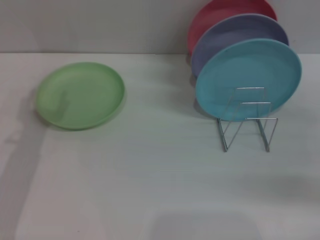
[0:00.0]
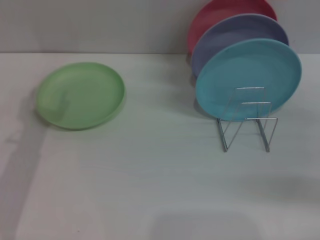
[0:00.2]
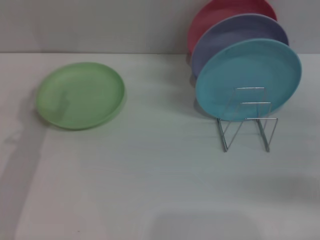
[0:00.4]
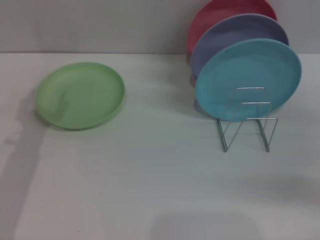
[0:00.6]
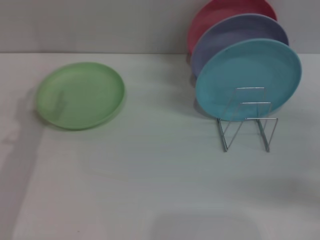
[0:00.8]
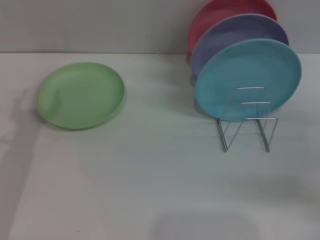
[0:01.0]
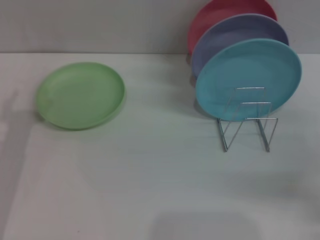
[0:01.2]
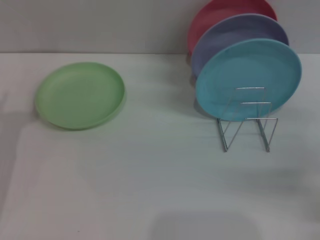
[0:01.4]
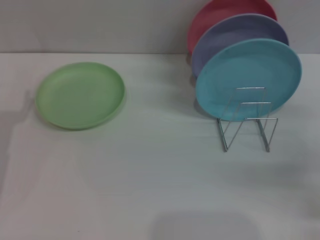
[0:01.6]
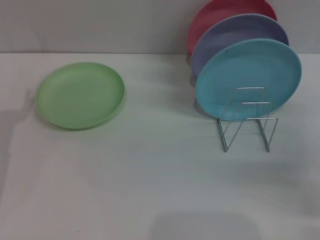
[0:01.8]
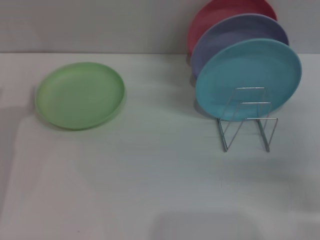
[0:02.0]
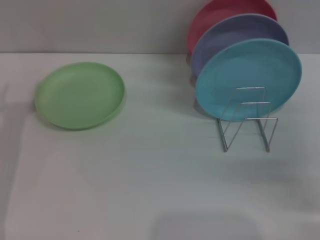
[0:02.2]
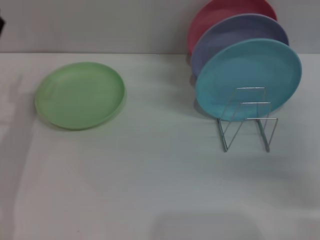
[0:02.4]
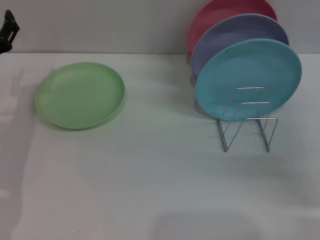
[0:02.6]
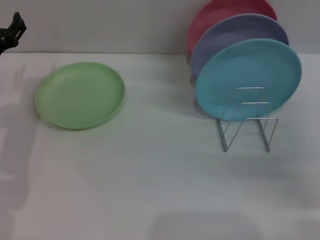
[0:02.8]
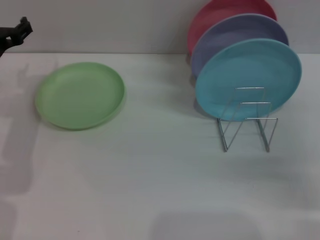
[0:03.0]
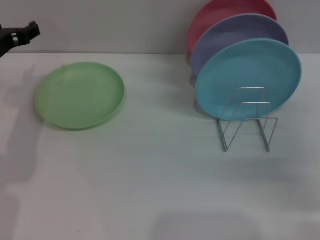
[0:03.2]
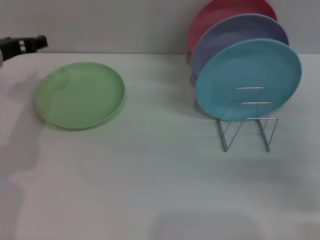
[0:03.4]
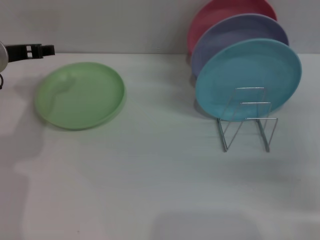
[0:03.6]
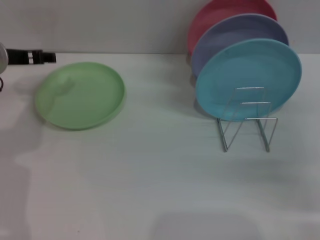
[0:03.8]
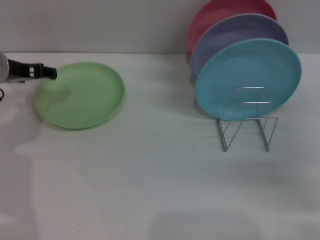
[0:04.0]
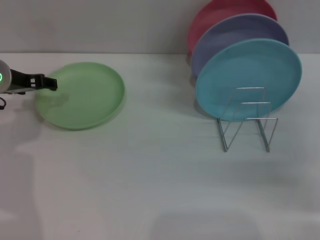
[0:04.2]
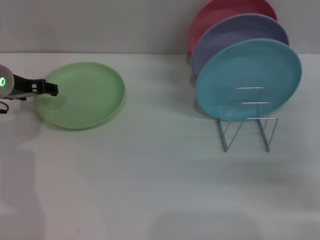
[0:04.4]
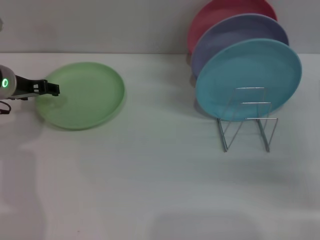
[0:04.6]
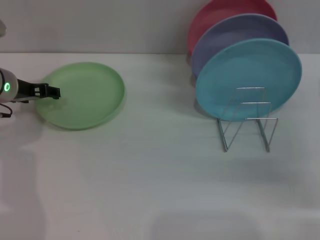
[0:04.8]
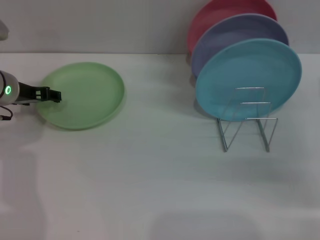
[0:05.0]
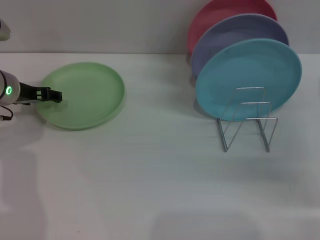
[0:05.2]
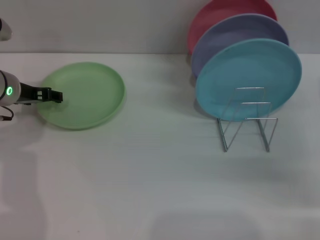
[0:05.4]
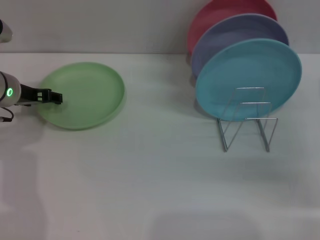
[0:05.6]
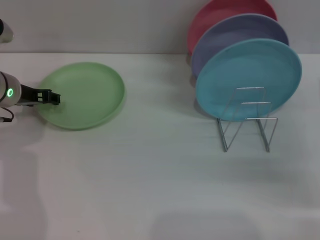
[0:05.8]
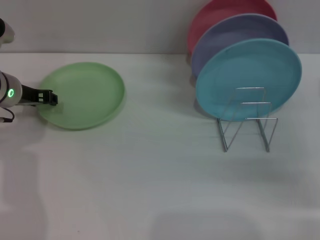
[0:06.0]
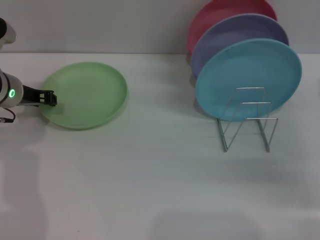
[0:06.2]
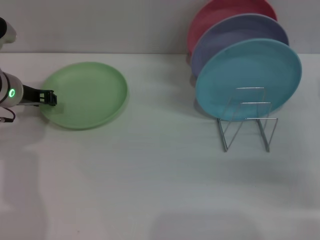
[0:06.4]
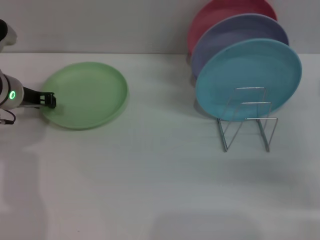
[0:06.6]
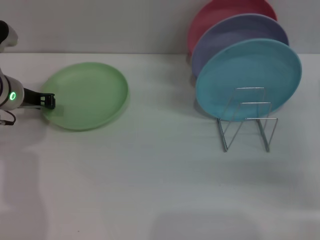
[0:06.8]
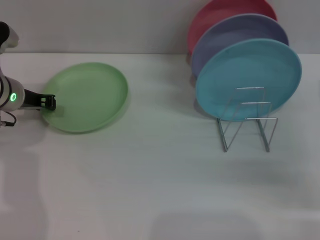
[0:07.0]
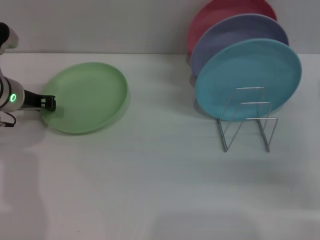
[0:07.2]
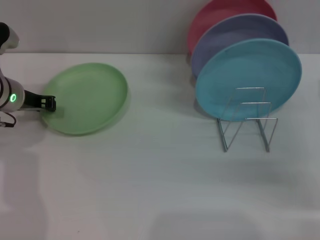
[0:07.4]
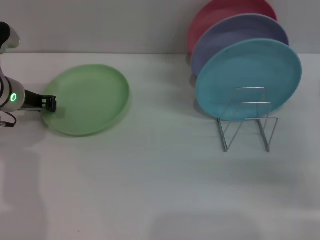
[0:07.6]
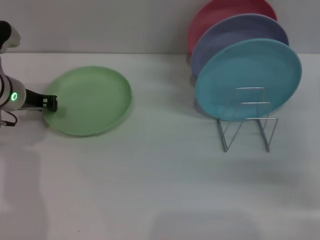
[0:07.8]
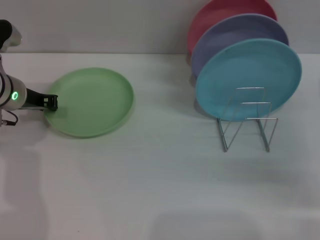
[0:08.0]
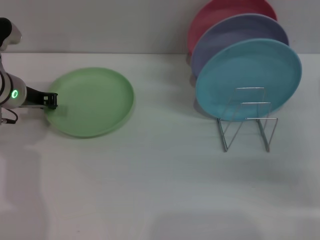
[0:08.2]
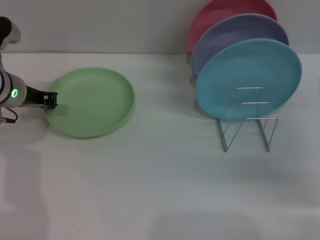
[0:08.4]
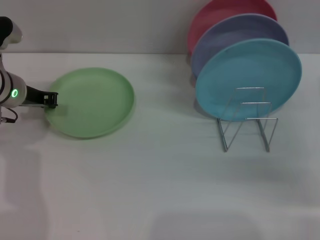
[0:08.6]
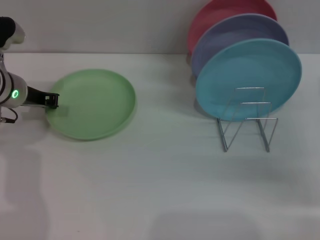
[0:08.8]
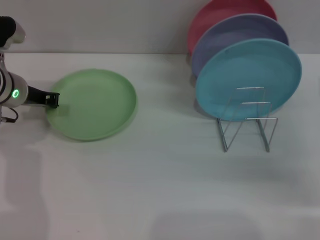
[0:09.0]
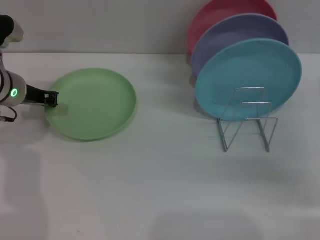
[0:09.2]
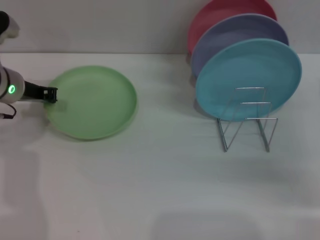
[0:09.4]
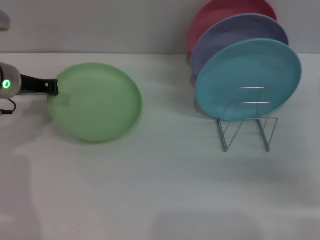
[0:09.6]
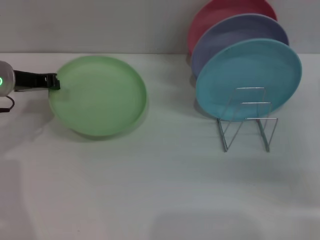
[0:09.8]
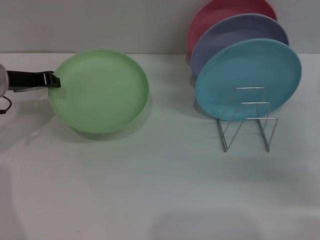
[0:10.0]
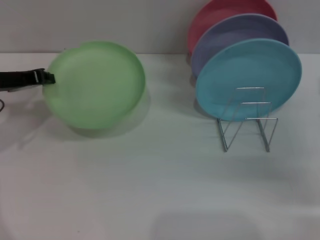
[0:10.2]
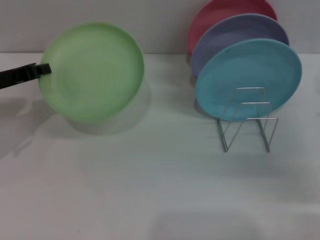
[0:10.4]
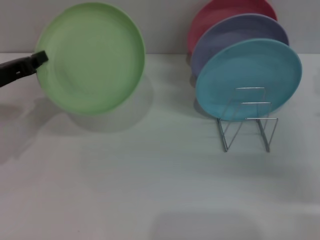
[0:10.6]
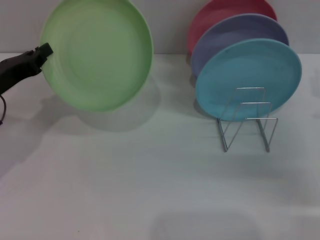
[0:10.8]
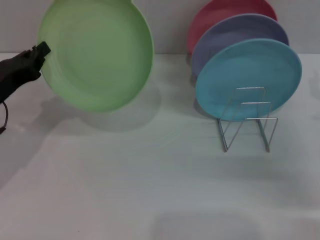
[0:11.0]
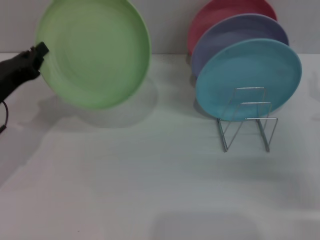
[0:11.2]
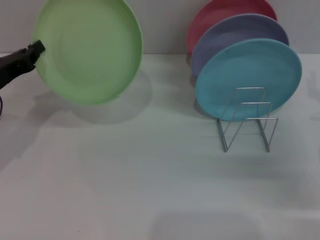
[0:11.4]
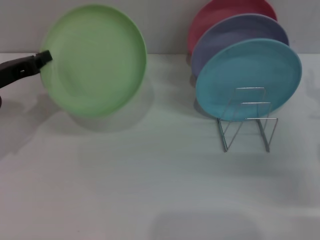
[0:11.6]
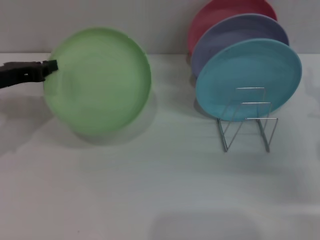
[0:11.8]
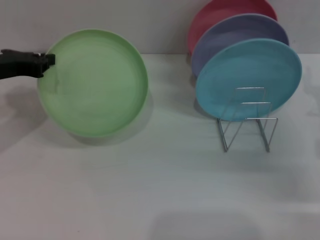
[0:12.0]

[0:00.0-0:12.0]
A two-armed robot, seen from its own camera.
Task of the whole recording: Grip the plate with one hand, pass it to the other, then set it on the shelf.
Step, 0:00.0 to 0:10.6: Pick up the plate with the left gripper.
0:01.6 to 0:03.0: The left gripper shifts about 10 cm forward.
0:04.4 to 0:06.0: The grippers move only a little.
0:06.0 to 0:07.6: The left gripper closes up.
0:07.6 to 0:09.0: The two grippers keep their place.
0:09.0 to 0:10.4: The left gripper travels backward and to the left by about 10 cm.

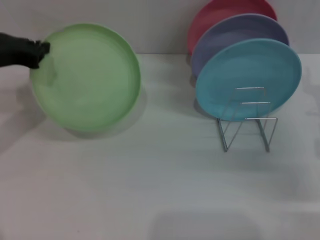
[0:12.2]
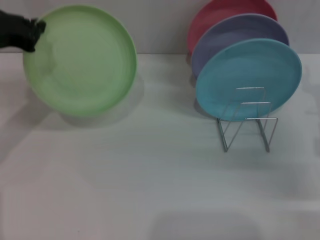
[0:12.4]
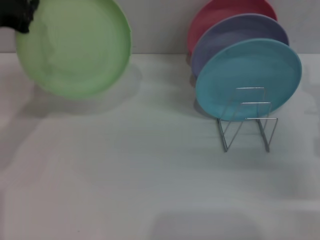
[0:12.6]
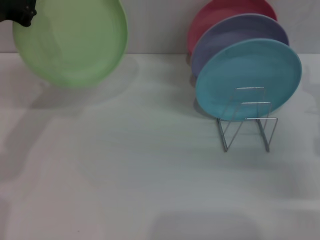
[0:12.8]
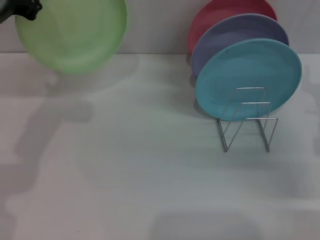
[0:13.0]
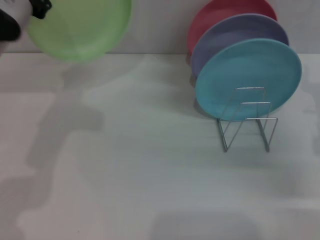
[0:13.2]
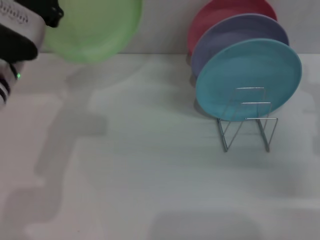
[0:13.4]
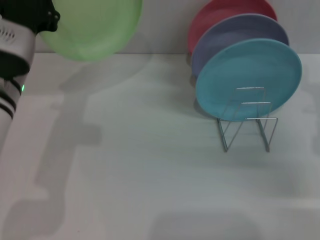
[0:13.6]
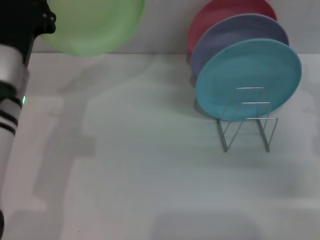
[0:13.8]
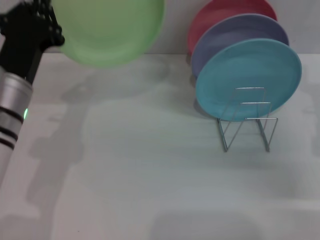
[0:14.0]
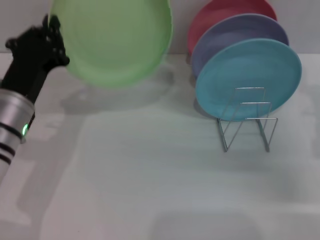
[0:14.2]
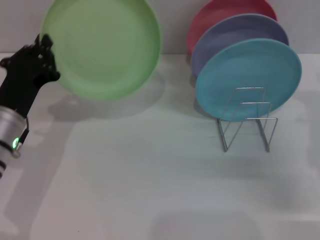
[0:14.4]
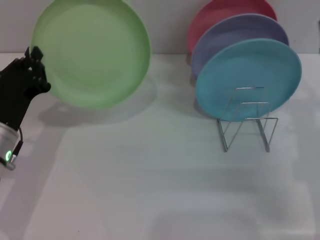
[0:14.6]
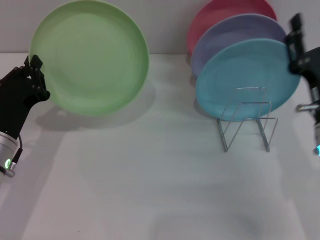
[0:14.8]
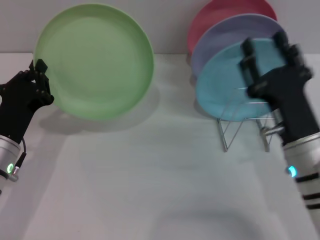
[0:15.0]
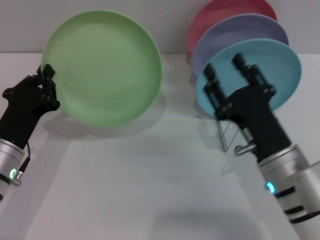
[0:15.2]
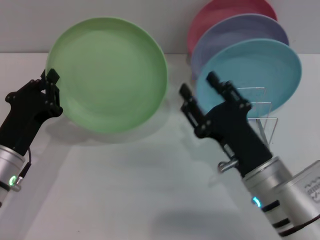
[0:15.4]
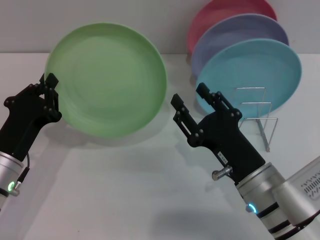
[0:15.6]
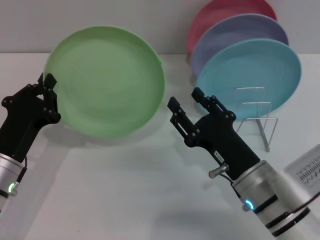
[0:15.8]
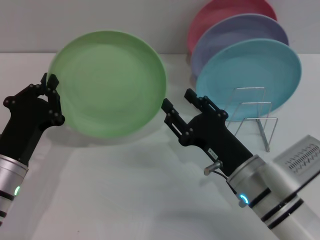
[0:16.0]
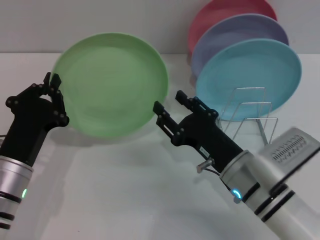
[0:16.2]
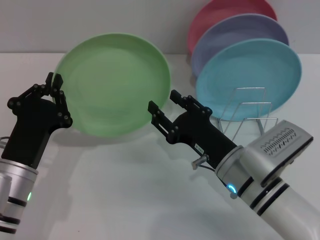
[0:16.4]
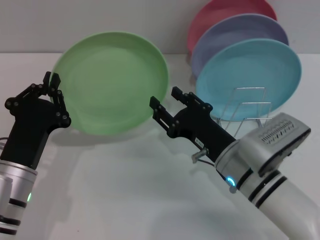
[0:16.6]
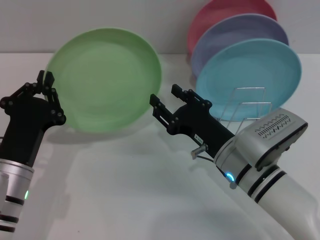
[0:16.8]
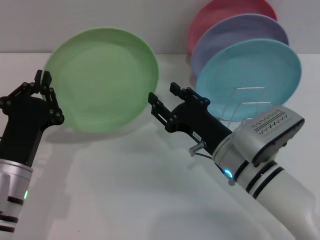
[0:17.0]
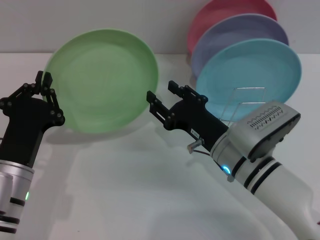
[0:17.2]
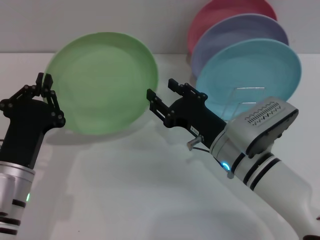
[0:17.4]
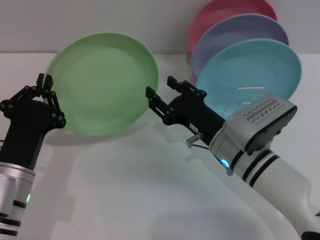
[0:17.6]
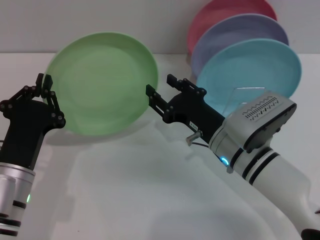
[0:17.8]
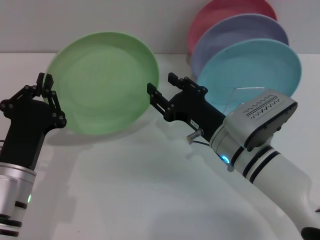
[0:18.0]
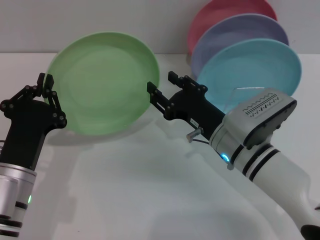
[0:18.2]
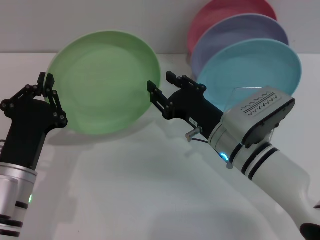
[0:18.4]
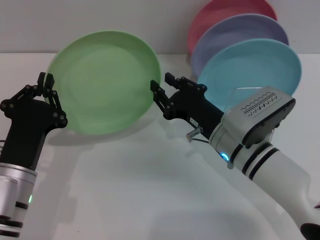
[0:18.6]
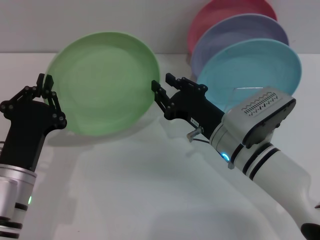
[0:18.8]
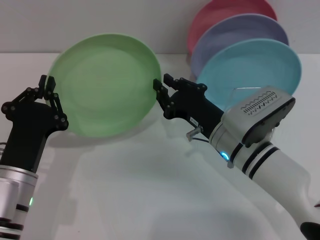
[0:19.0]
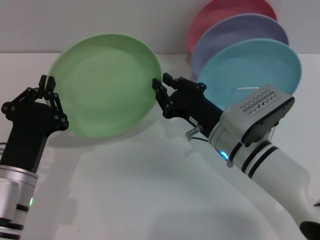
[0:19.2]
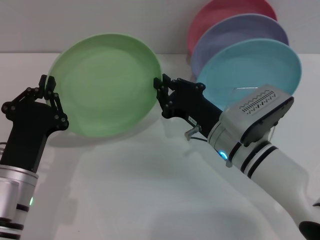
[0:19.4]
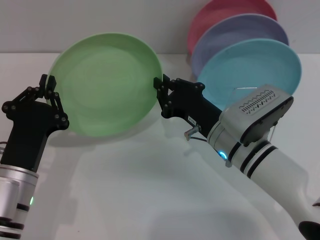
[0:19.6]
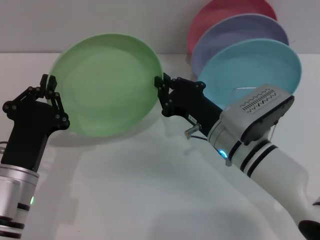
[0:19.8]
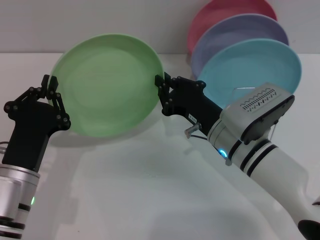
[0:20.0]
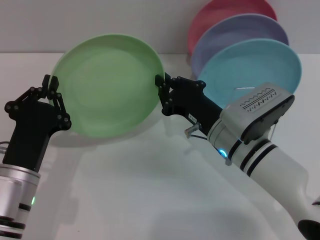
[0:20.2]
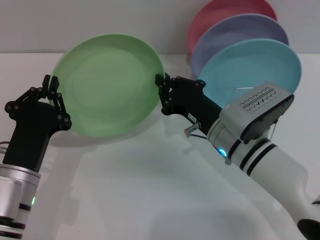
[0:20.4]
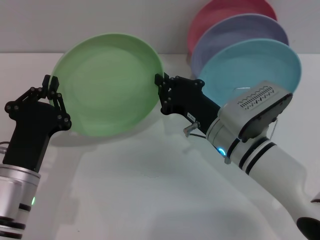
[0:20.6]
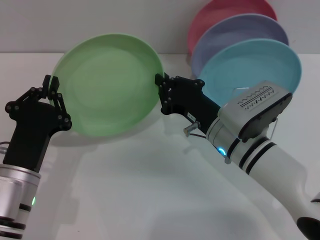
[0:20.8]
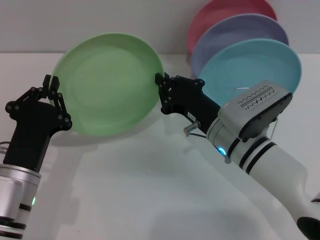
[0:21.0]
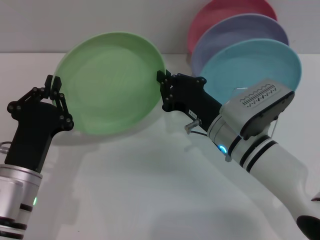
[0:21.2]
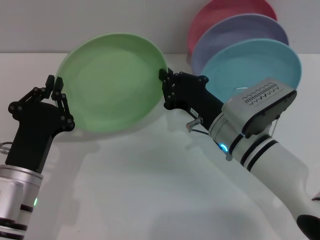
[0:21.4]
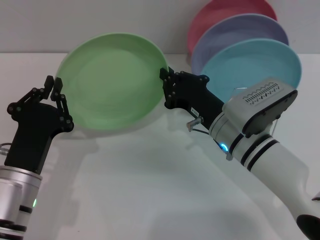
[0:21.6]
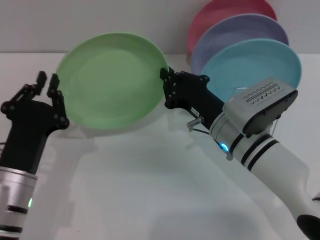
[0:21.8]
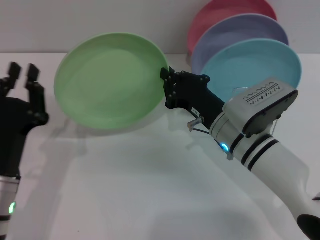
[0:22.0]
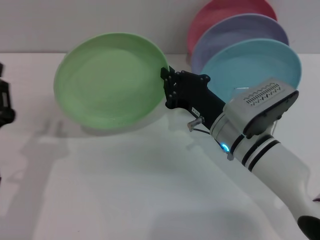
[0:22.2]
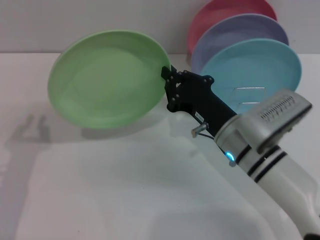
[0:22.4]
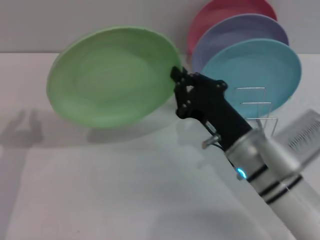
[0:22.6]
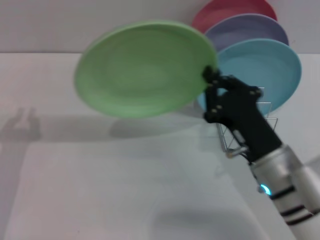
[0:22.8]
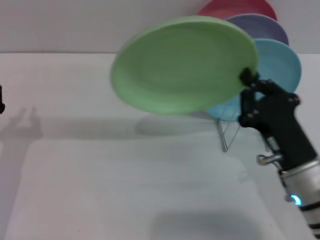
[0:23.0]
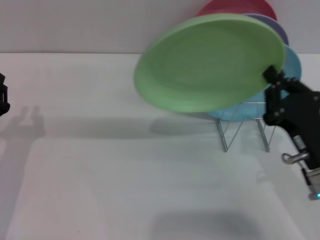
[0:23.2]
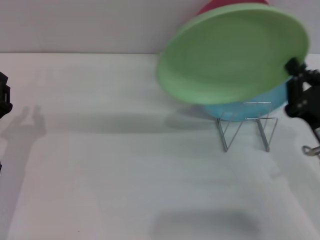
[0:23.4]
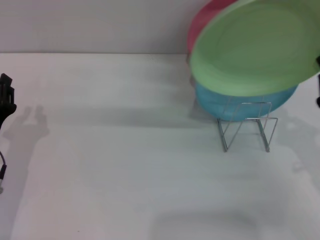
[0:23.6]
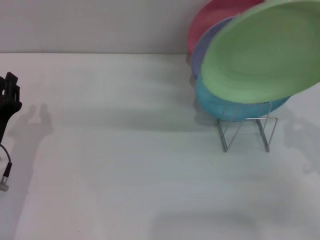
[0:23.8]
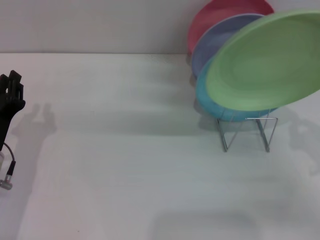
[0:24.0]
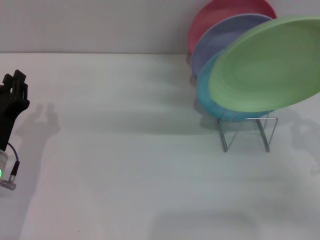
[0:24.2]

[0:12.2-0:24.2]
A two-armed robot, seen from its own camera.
Task of the whole recording: Grip the plate with one hand, pass it to the other, then set it on the shelf.
Step, 0:12.2 to 0:21.8: Pass the plate from the left gripper to the right gripper.
0:12.2 to 0:13.8: The left gripper moves to the right and backward, about 10 cm.
0:13.8 to 0:15.2: The right gripper is displaced to the left and backward by roughly 15 cm, while the left gripper goes roughly 10 cm downward.
0:15.2 to 0:16.6: The right gripper ends up roughly 5 cm from where it was.
0:16.6 to 0:18.2: The grippers make only small movements.
0:18.2 to 0:19.8: The right gripper closes its fingers.
0:19.8 to 0:21.2: Both grippers stay about where they are.
0:21.2 to 0:22.6: The left gripper is displaced to the left by about 10 cm.
0:22.6 to 0:24.2: The right gripper heads to the right, covering some 20 cm.
